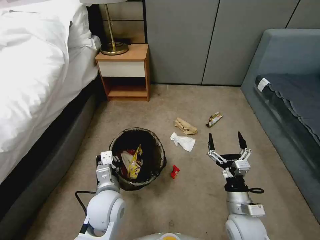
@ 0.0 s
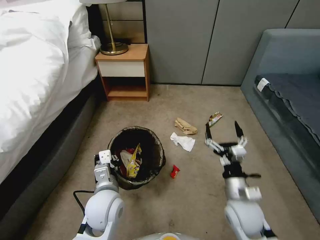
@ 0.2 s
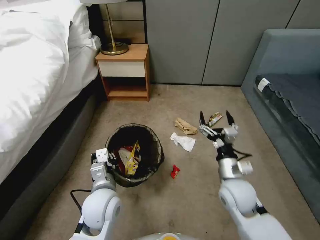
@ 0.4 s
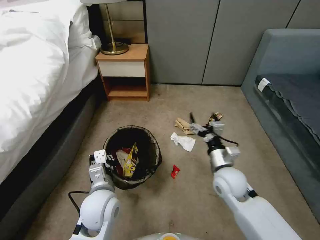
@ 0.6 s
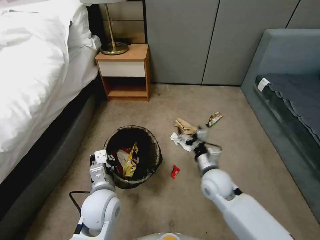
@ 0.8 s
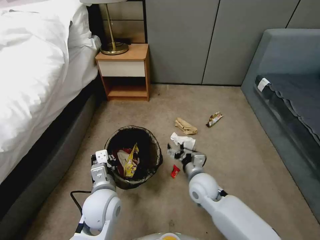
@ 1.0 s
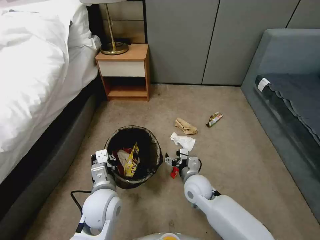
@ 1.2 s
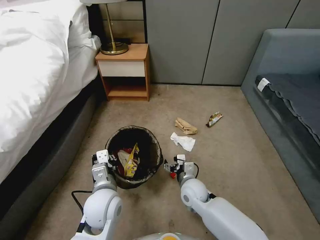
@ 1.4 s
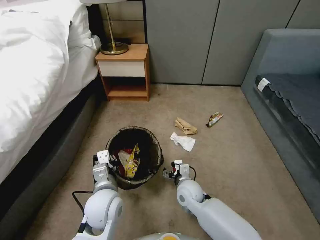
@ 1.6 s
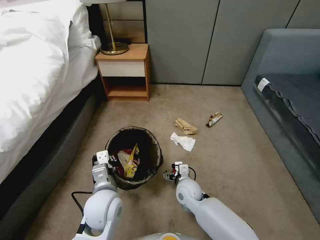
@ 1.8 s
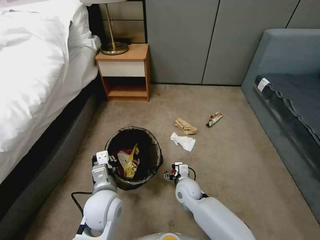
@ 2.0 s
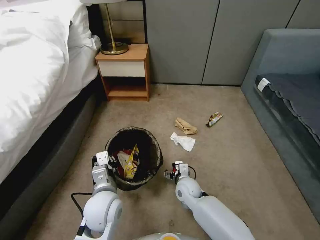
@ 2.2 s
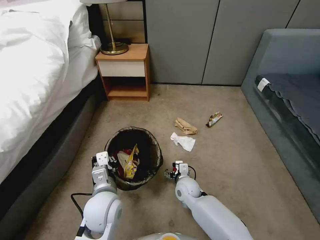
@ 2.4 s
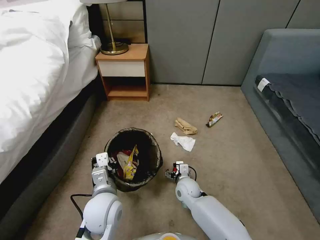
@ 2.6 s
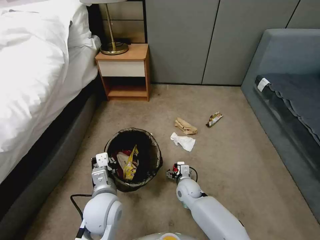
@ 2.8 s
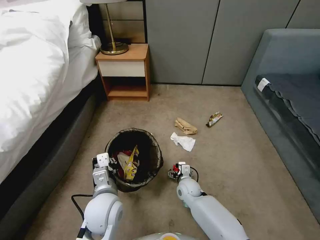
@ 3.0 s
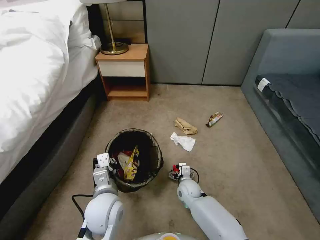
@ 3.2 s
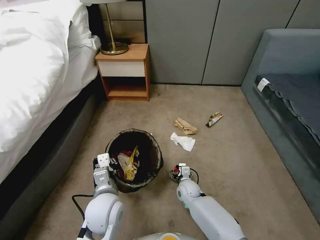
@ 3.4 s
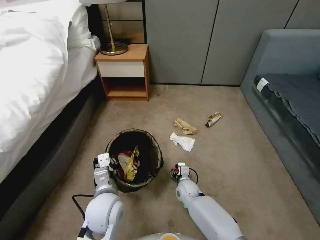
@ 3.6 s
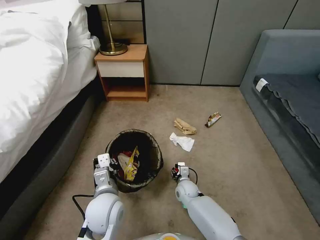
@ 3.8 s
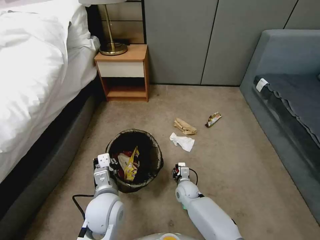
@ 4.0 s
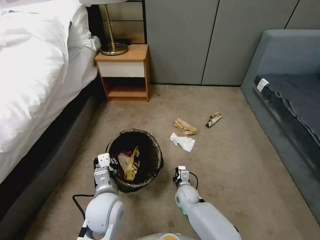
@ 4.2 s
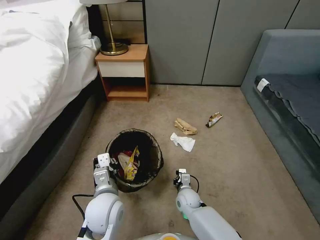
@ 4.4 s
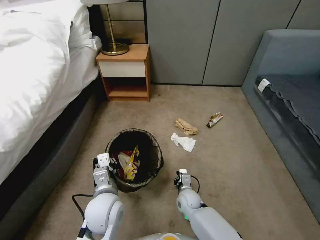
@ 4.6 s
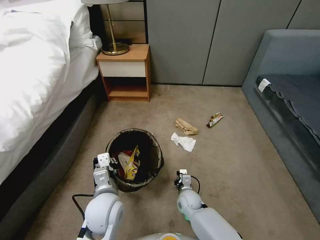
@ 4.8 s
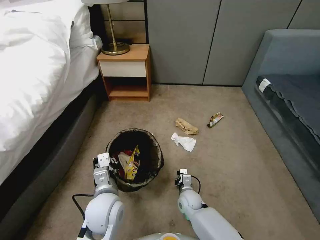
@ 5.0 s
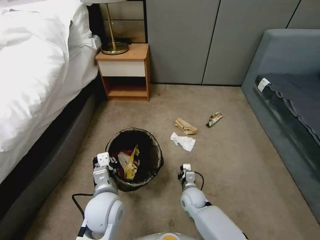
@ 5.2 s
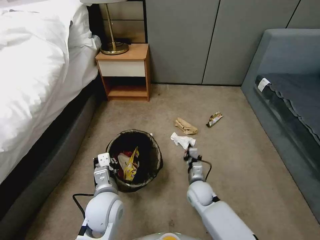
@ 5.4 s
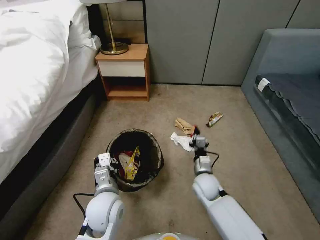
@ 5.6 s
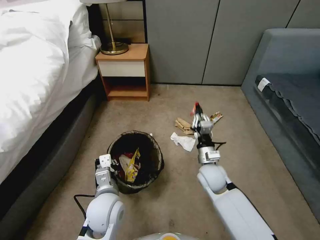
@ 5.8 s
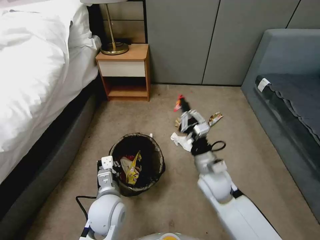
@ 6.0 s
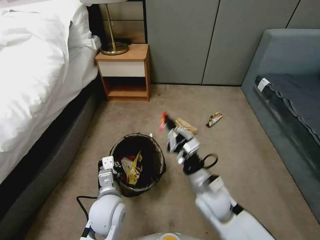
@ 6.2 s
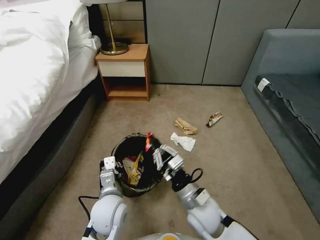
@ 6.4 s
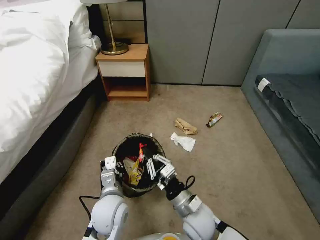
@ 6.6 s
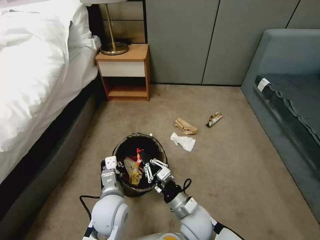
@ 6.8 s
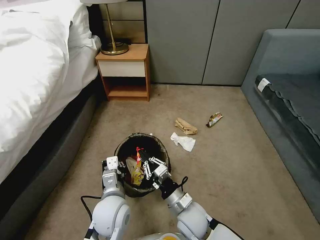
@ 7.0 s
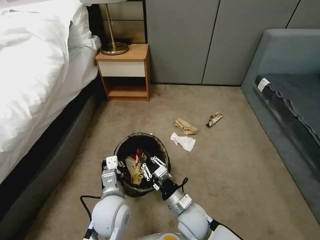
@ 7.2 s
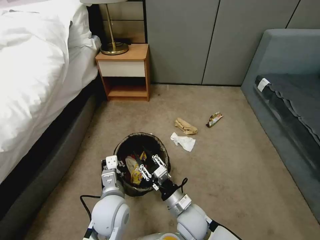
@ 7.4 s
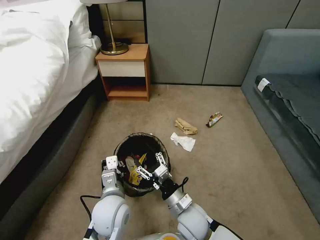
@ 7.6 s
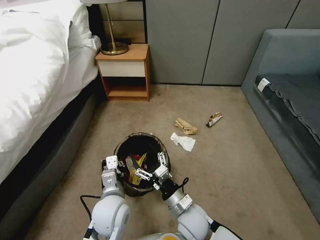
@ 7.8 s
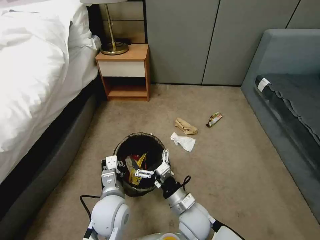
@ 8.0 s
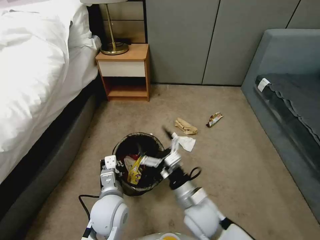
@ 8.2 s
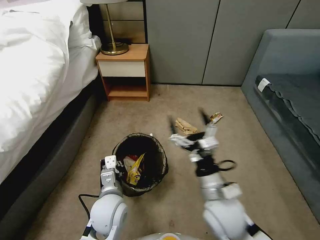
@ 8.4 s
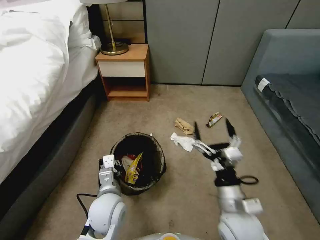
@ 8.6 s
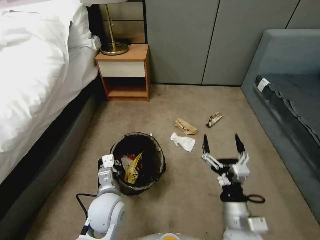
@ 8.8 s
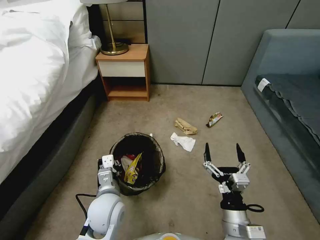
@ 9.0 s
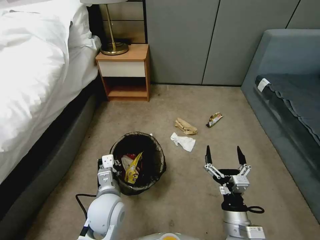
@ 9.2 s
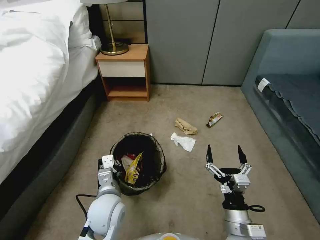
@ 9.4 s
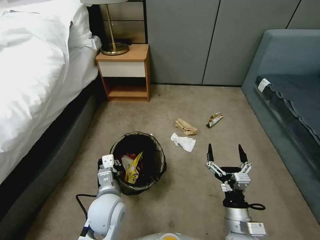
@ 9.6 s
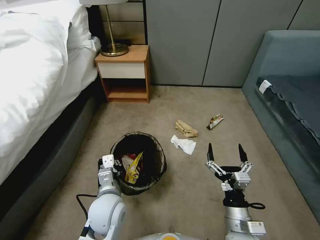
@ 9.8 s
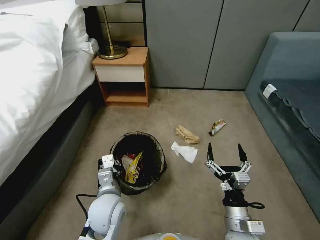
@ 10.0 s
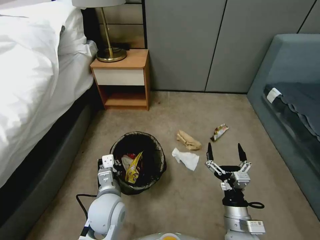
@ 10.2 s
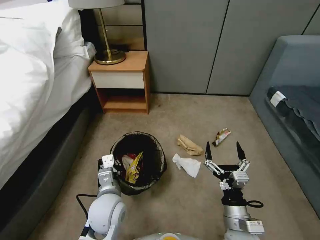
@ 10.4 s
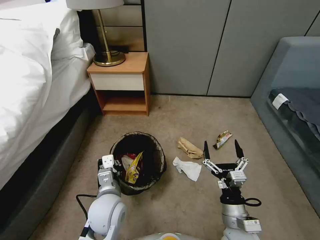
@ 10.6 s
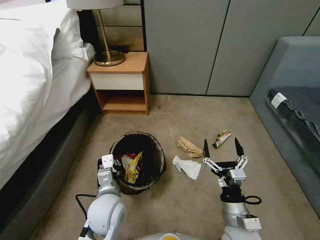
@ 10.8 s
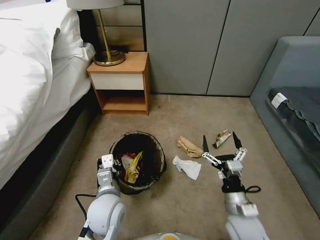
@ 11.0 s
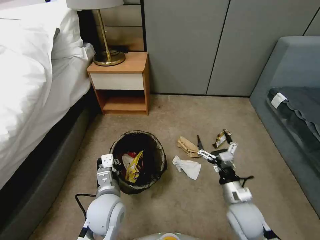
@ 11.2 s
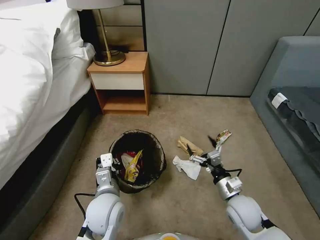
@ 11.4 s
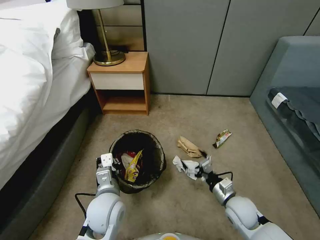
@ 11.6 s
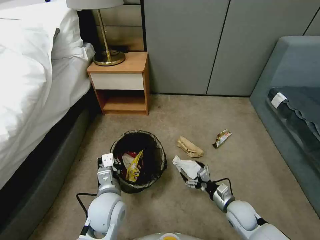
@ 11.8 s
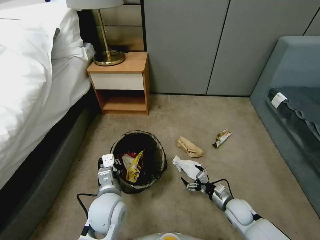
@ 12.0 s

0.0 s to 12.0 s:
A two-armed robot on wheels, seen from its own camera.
Task of the whole recording: Pick up the trash bin, then pick up the garbage from the floor and place it into the trash bin.
0.0 to 1.6 s: The right gripper travels to the left, forward and downward by some 20 cm.
1.6 to 3.0 s: The right gripper travels downward by approximately 5 cm.
3.0 to 4.4 s: The right gripper closes up.
4.4 to 6.0 s: The right gripper goes about 25 cm upward.
6.0 to 7.6 s: The right gripper moves downward, backward and to the left, about 15 cm, and opens its fingers.
7.6 to 9.0 s: The right gripper heads to the right, backward and upward, covering approximately 15 cm, and opens.
10.4 to 12.0 s: The right gripper moves downward, forward and to the right, approximately 20 cm.

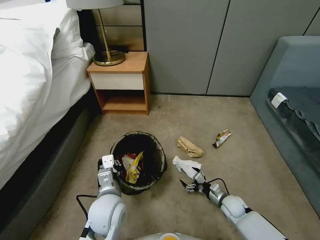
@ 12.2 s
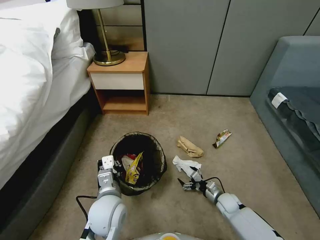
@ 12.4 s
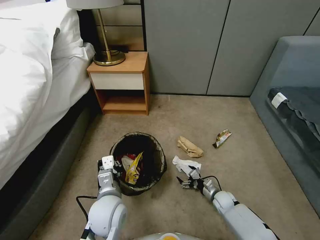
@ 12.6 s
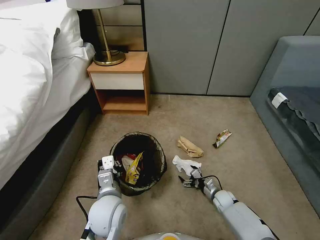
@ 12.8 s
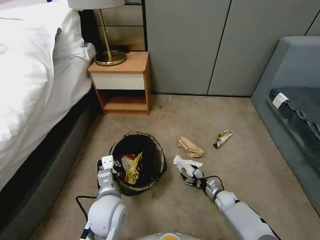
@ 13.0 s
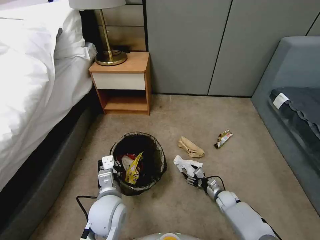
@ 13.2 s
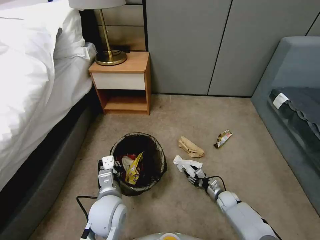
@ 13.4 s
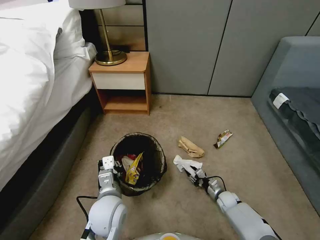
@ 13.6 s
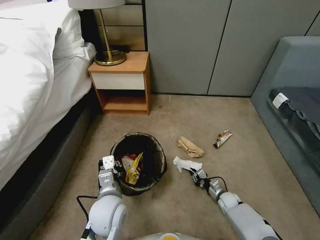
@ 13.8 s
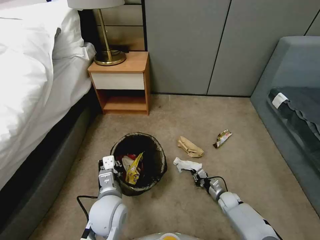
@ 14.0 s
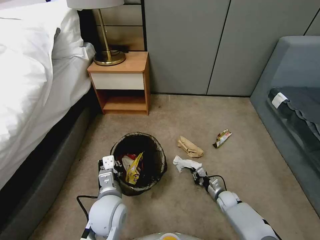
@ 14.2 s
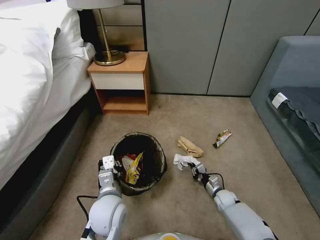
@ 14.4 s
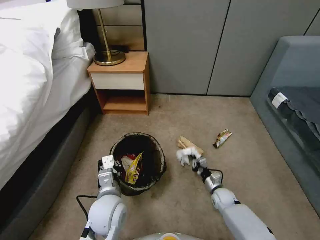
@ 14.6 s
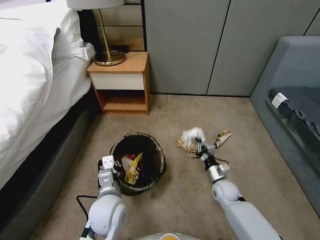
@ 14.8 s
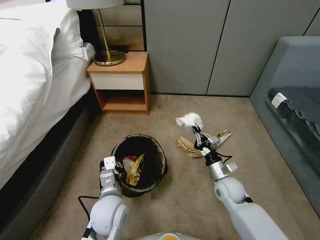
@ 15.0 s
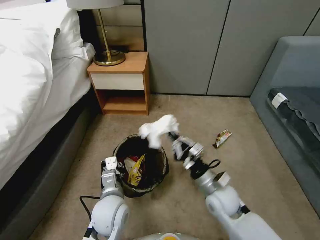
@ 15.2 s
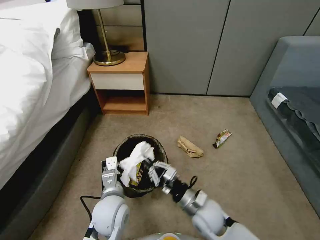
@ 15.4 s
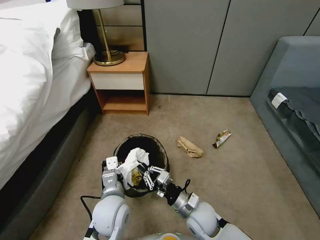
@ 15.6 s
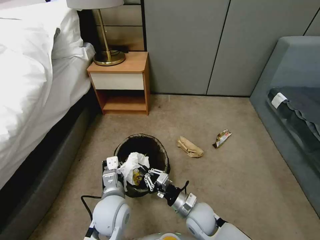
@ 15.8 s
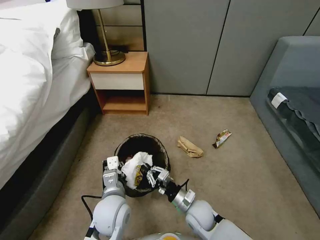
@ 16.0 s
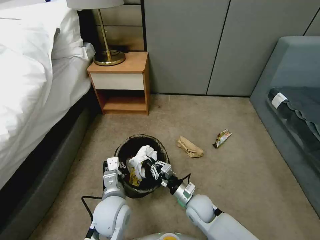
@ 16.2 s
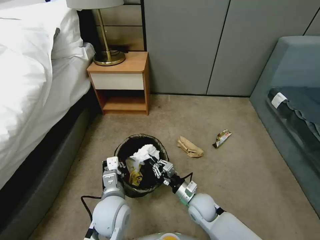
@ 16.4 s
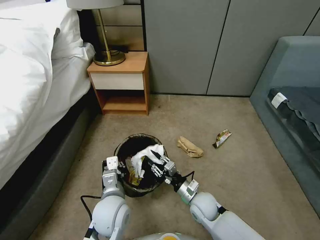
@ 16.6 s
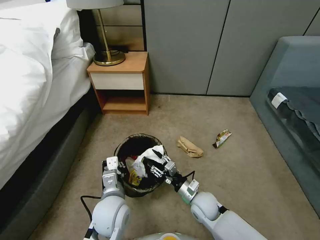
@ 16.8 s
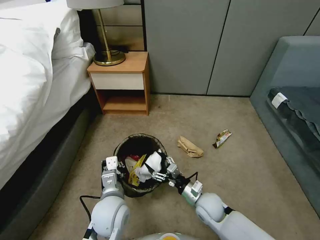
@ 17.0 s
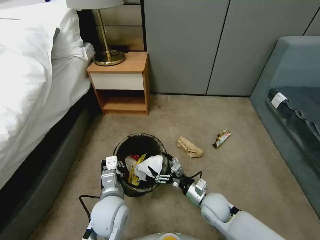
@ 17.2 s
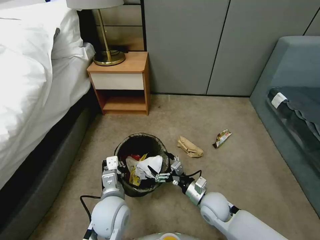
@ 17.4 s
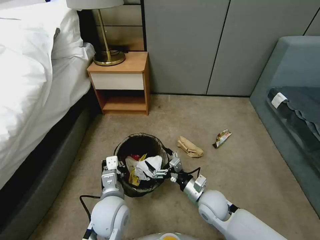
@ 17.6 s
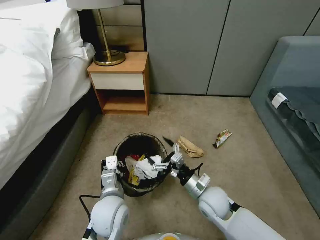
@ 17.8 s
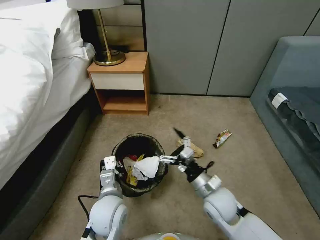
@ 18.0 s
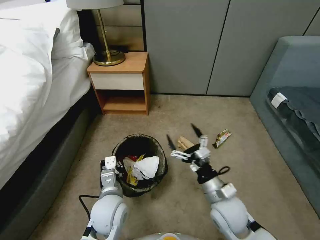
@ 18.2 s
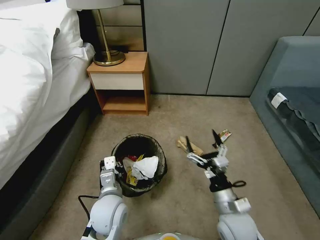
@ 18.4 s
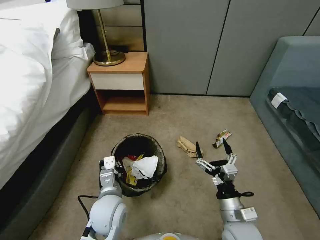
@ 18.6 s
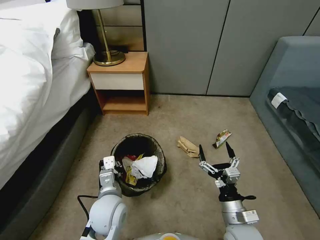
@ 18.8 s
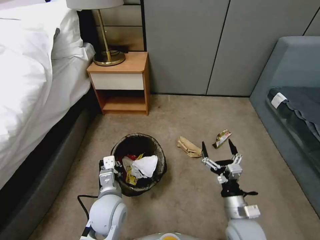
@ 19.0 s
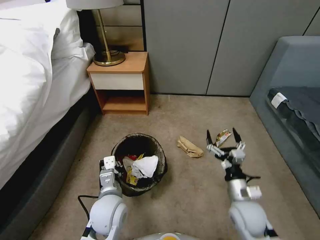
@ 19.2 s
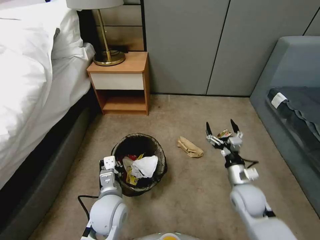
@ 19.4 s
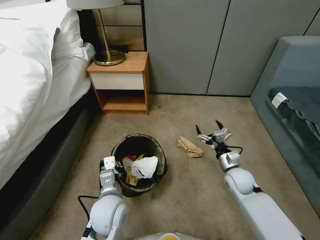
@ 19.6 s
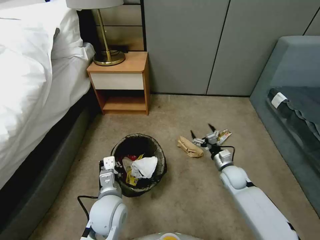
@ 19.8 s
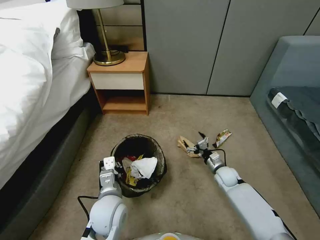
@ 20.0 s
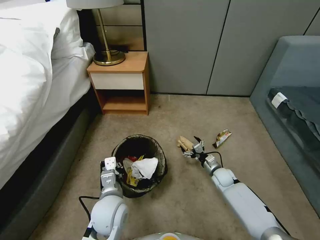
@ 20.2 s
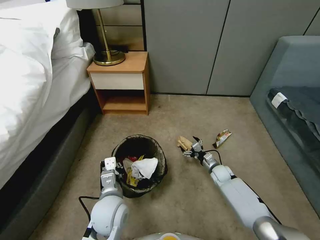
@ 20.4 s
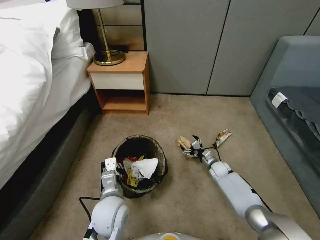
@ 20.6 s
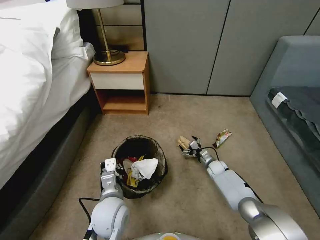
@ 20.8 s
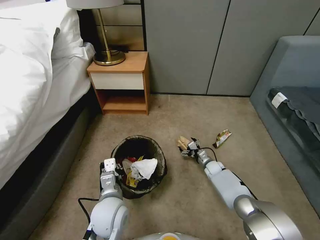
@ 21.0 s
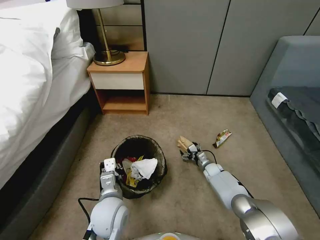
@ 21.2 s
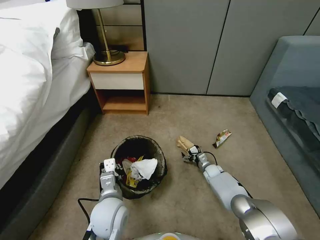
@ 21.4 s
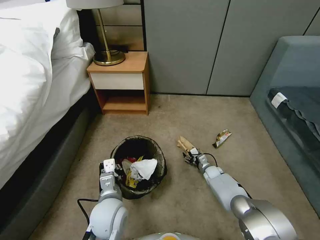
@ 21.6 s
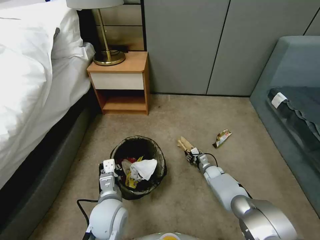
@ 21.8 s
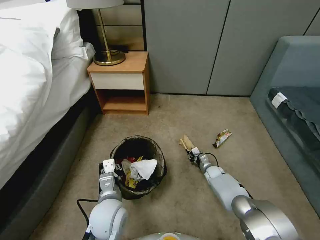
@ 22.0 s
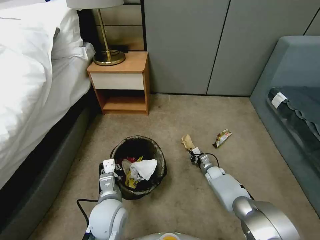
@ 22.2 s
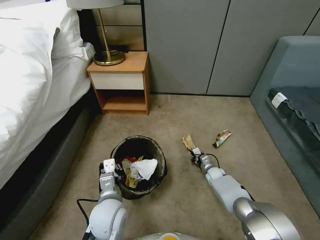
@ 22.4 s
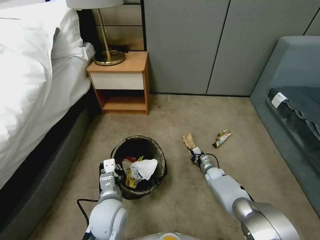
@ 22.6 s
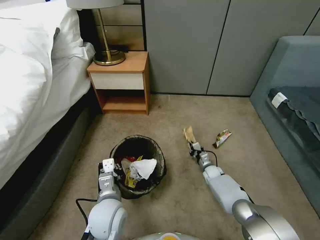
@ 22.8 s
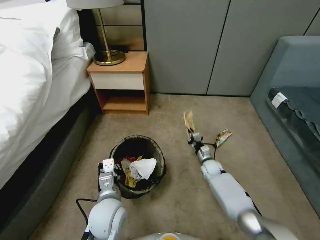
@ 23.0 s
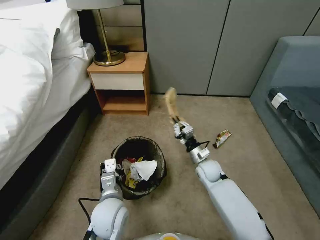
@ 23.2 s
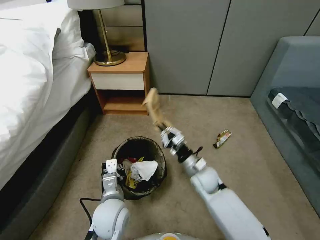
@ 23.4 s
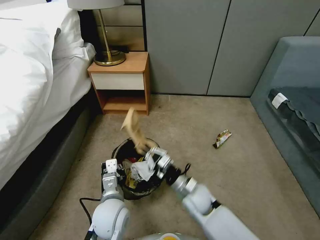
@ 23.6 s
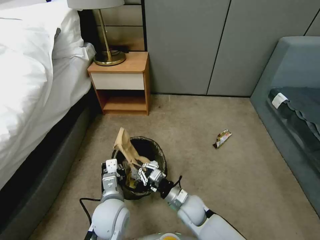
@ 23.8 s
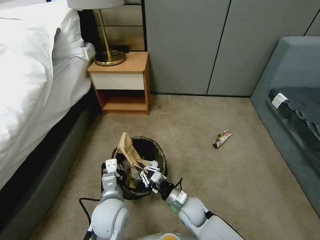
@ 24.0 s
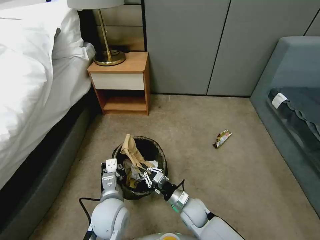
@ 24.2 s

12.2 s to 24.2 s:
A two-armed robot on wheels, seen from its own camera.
Task of the whole recording: Pick up the trash bin, then pick up the garbage from the floor and place it into the trash bin.
12.2 to 13.8 s: The right gripper is displaced downward by roughly 5 cm, and closes.
13.8 to 15.2 s: The right gripper moves upward and to the left, about 30 cm.
15.2 to 16.6 s: The right gripper travels downward and to the left by some 10 cm.
16.6 to 18.2 s: The right gripper goes about 10 cm upward, and opens its fingers.
18.2 to 19.8 s: The right gripper travels forward, downward and to the right by some 20 cm.
19.8 to 21.2 s: The right gripper is displaced downward and forward by approximately 15 cm.
21.2 to 22.6 s: The right gripper closes its fingers.
22.6 to 24.2 s: The right gripper heads backward, to the left and upward, covering roughly 25 cm.
